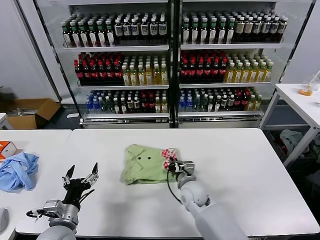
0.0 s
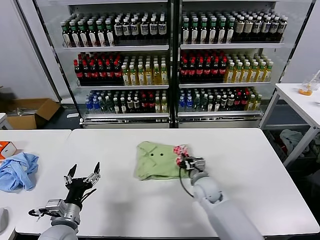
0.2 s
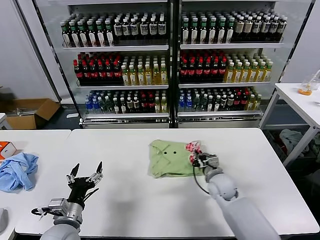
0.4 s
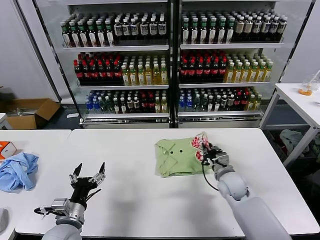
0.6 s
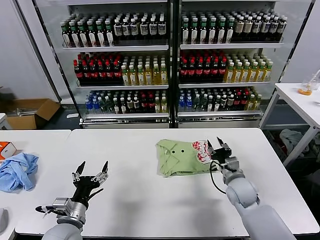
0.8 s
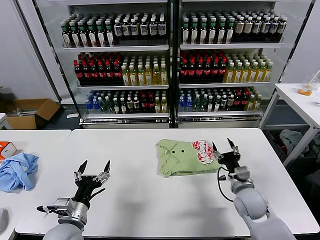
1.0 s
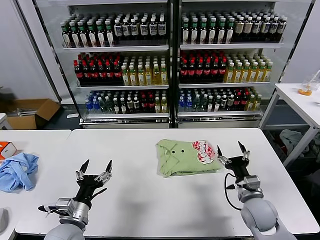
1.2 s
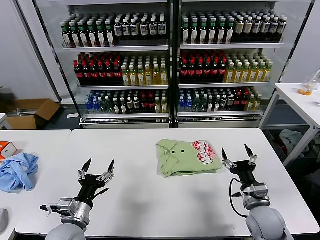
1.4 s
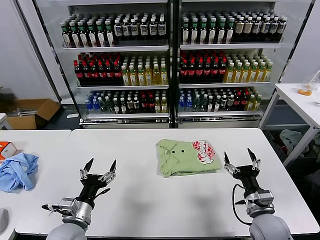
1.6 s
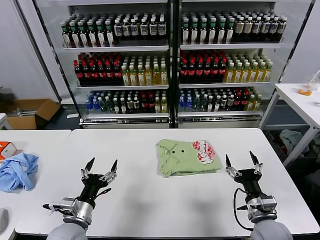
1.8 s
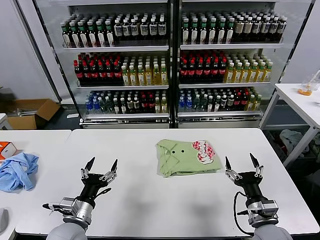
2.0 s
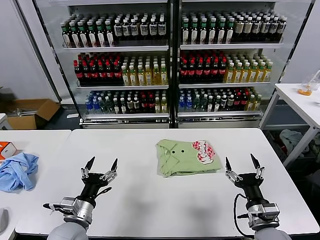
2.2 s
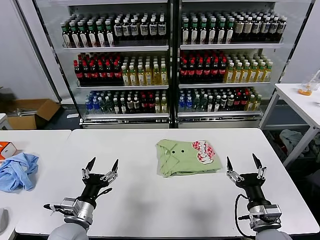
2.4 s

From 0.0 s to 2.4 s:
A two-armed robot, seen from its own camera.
Task of the whole recording: fold and organize the clothes.
From 0.0 s to 1.2 s: The right gripper is displaced to the right by some 20 cm, and opens its fingers.
From 1.2 s to 2.4 s: The right gripper heads backward, covering approximately 10 cm.

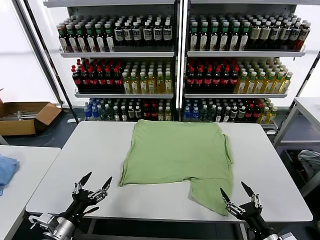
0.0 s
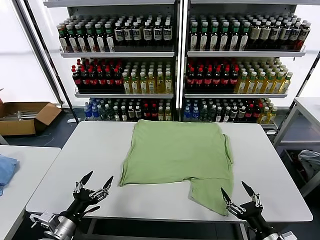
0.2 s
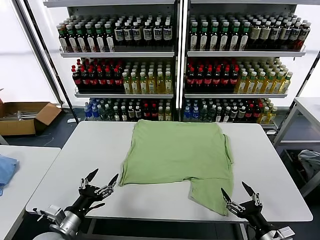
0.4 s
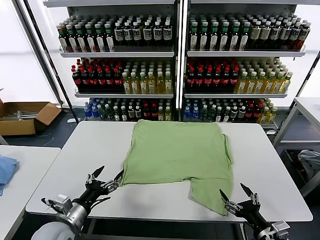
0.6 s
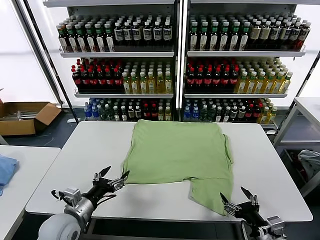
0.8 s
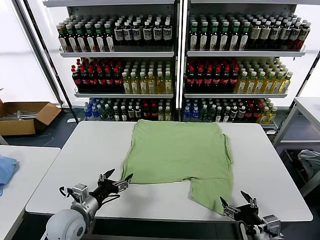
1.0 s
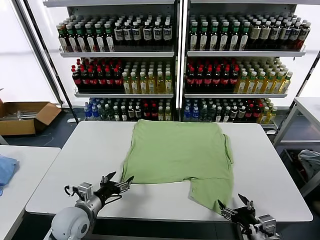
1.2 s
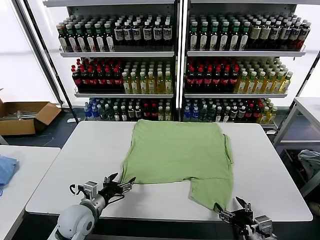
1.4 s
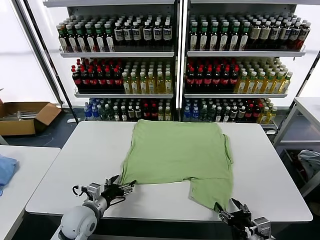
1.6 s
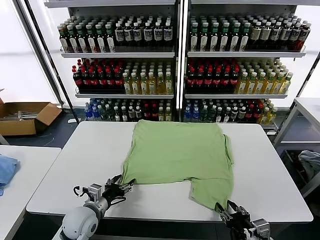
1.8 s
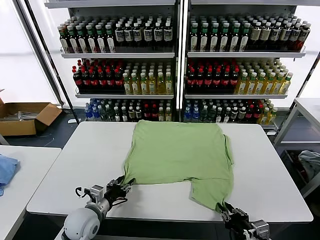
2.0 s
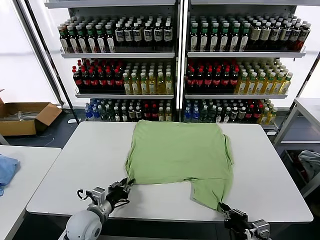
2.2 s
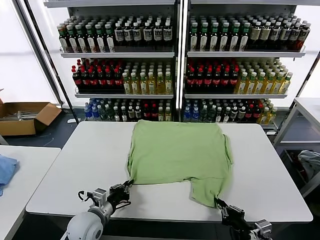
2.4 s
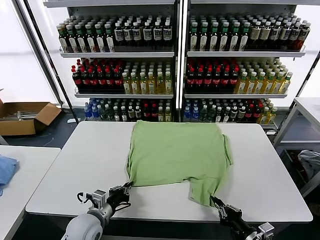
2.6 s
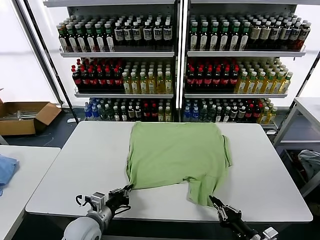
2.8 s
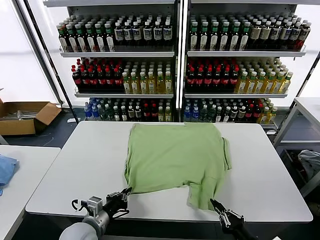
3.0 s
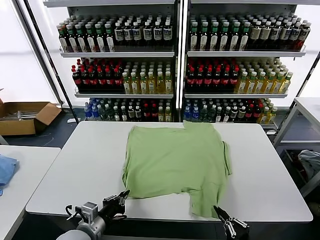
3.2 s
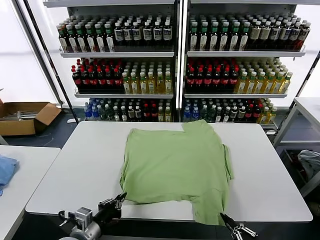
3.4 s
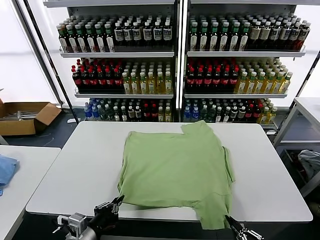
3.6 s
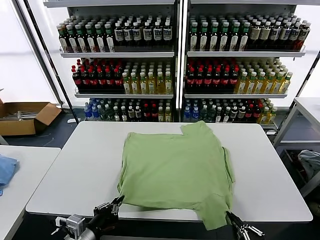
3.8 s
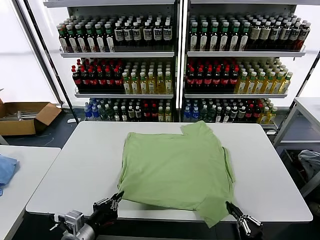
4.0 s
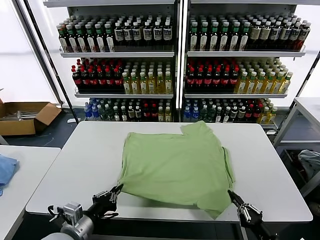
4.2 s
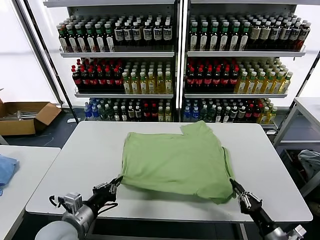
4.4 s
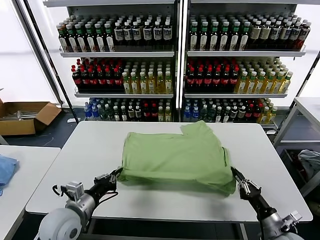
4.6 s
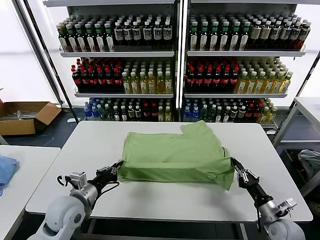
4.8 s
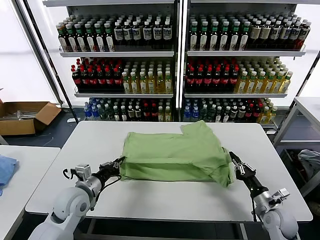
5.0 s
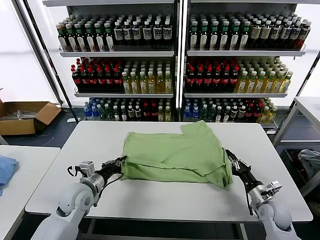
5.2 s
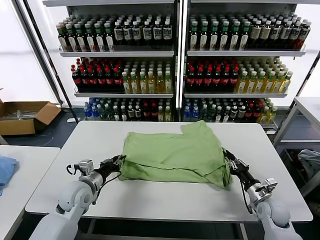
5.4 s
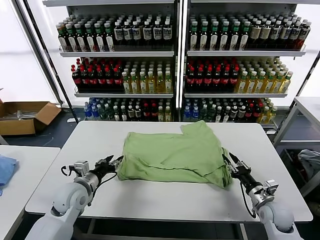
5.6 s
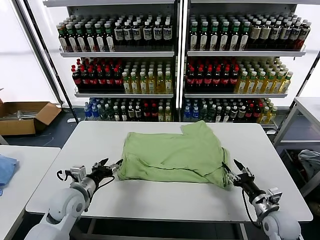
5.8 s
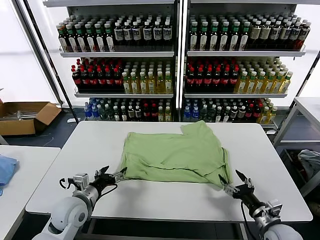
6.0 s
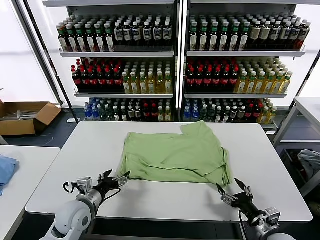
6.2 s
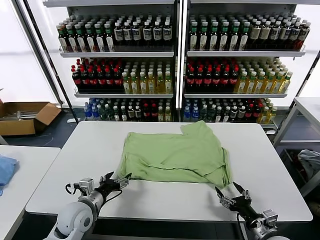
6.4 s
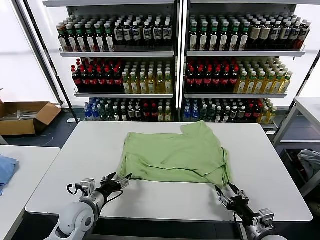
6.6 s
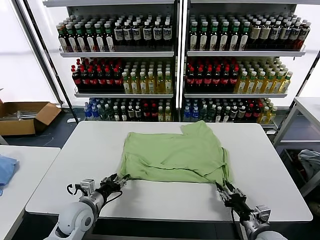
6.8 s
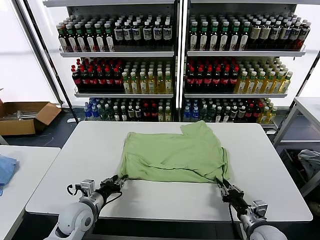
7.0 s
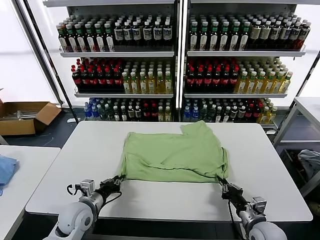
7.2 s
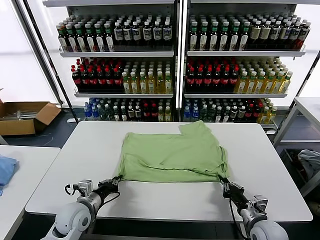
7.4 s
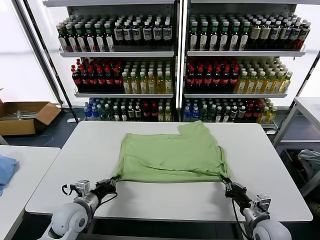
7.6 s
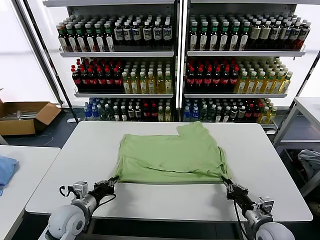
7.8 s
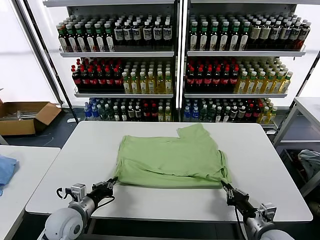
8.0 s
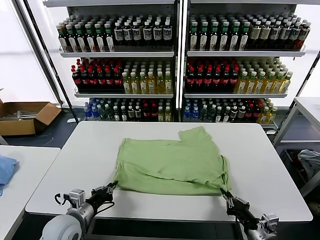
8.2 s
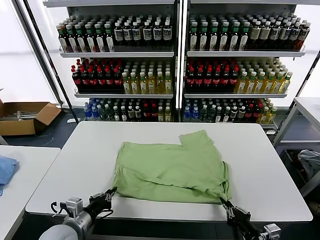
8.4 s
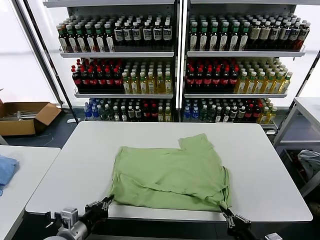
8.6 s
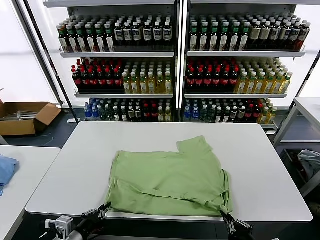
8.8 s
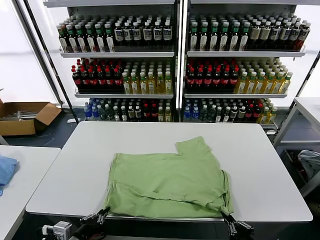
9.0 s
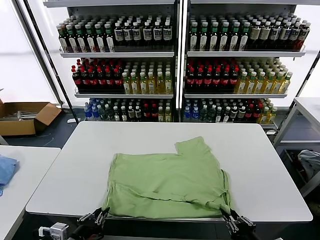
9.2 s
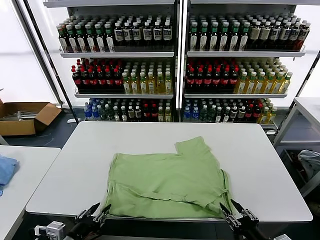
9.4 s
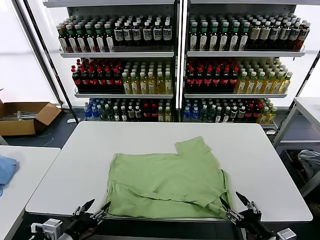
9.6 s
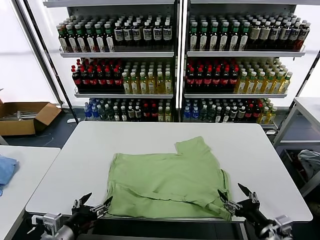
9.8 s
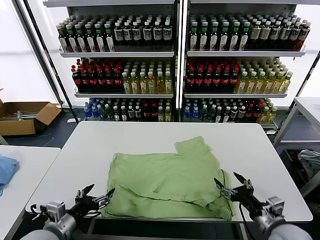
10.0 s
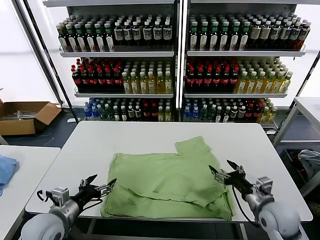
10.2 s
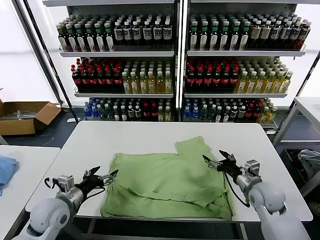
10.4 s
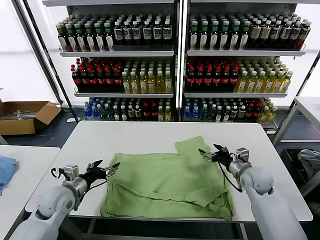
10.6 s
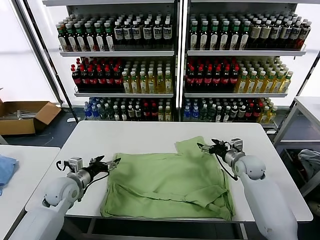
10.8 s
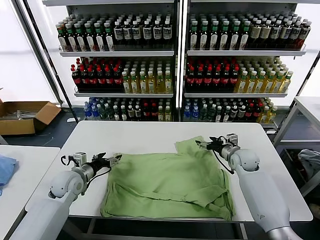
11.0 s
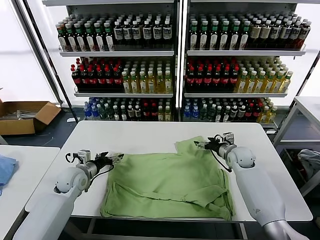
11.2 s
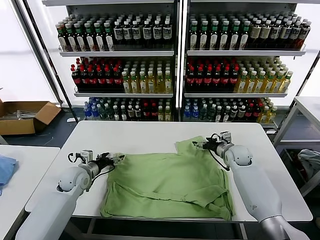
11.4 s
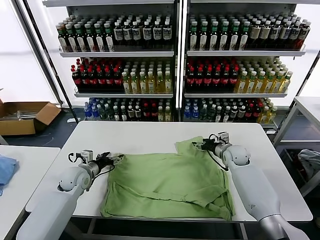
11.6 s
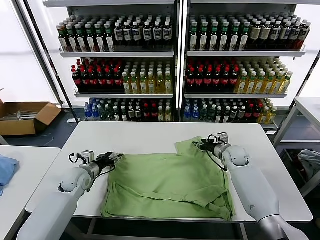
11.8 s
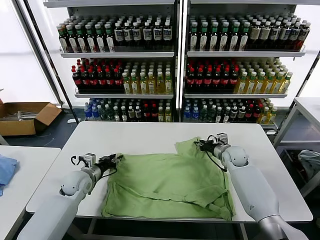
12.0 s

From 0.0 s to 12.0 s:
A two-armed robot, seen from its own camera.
Task of the whole recording: fold and organize the clothes.
Step, from 0.0 s to 2.4 s: use both grippers simultaneously to clamp the lower edge of the clothing fabric.
Step, from 2.6 s to 5.6 s: use both grippers to drag the lower edge of the fabric forward and fold it over the upper edge.
Step, from 5.8 s to 9.6 s: Drag the clothes downward with both gripper.
From 1.6 s to 3.0 s: The grippers both shift backward by roughly 5 cm. The left gripper closes up; the right gripper closes its fingers.
From 3.0 s to 4.4 s: The left gripper goes approximately 5 cm upward; the right gripper moves forward, some 10 cm.
From 4.4 s to 6.0 s: The left gripper goes approximately 5 cm forward, and opens. Meanwhile the right gripper goes forward and returns, some 10 cm each way, and opens its fingers.
From 6.0 s to 7.6 s: The left gripper closes, while the right gripper closes up.
From 7.6 s to 9.0 s: Both grippers move backward, some 15 cm.
From 9.0 s to 10.4 s: The left gripper goes about 15 cm forward, and opens, while the right gripper moves forward, roughly 30 cm, and opens its fingers.
From 10.4 s to 12.0 s: The left gripper shifts about 15 cm forward and downward, and closes up. The right gripper goes approximately 15 cm forward, and closes.

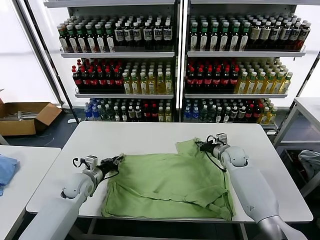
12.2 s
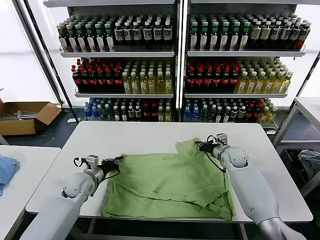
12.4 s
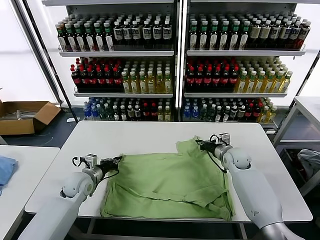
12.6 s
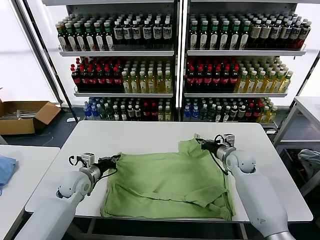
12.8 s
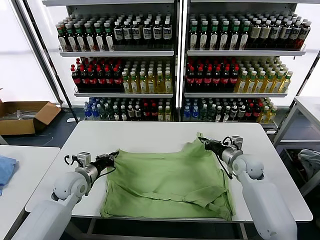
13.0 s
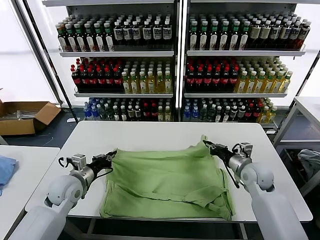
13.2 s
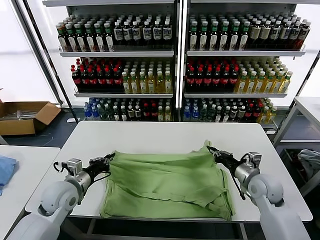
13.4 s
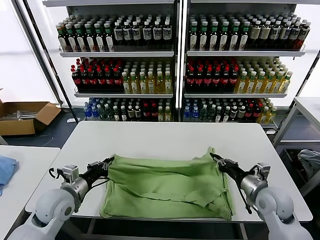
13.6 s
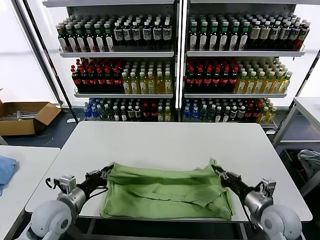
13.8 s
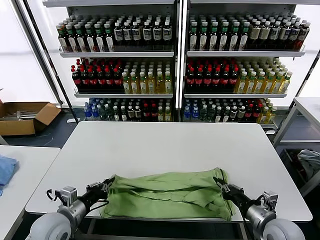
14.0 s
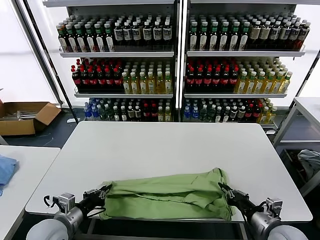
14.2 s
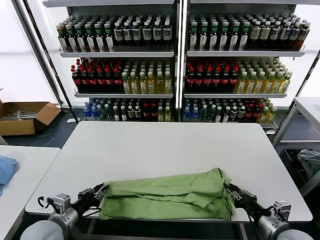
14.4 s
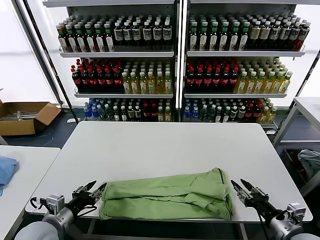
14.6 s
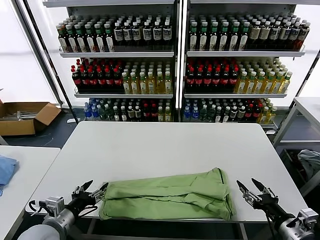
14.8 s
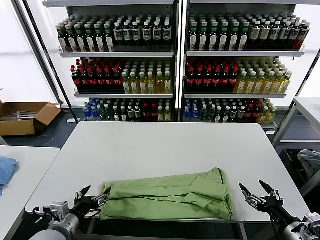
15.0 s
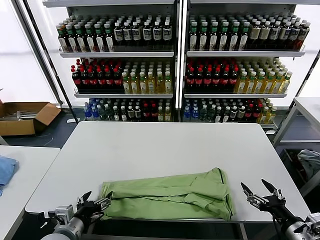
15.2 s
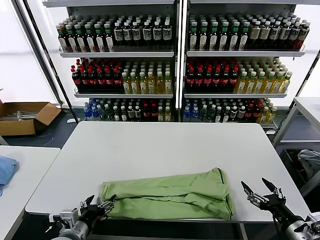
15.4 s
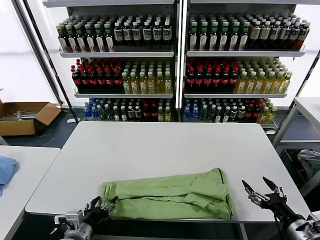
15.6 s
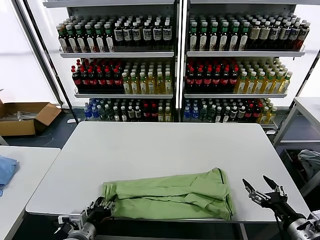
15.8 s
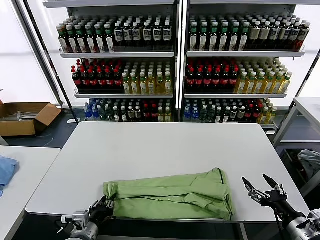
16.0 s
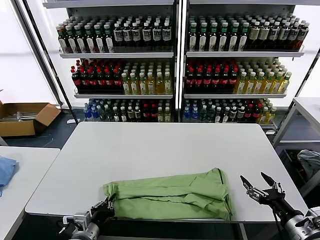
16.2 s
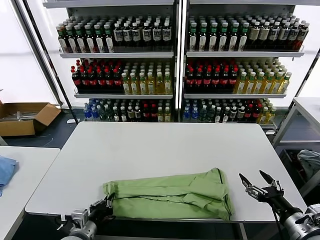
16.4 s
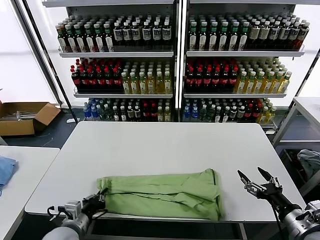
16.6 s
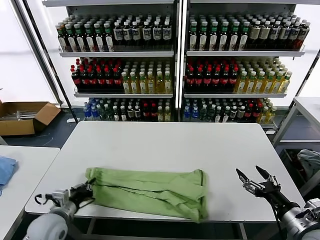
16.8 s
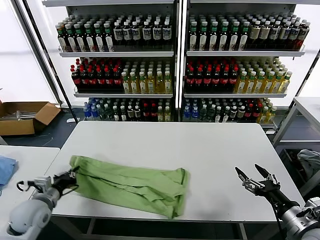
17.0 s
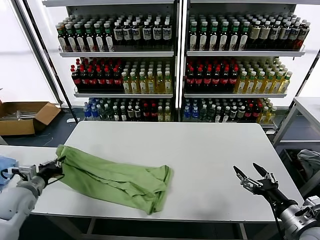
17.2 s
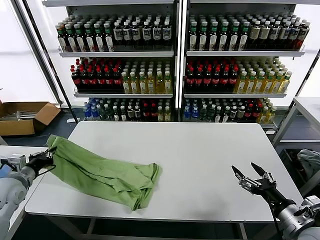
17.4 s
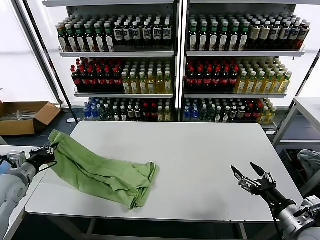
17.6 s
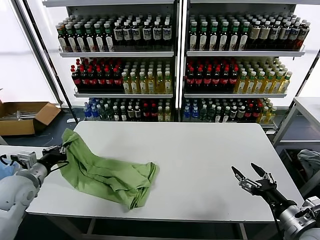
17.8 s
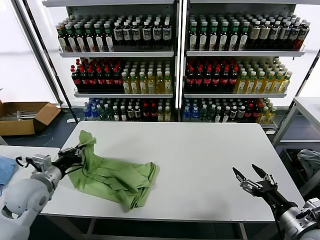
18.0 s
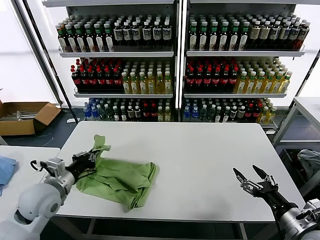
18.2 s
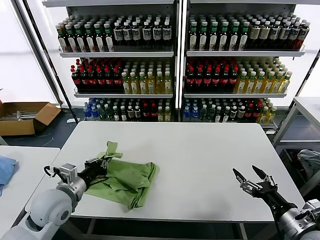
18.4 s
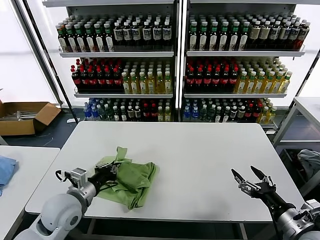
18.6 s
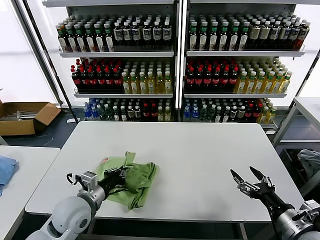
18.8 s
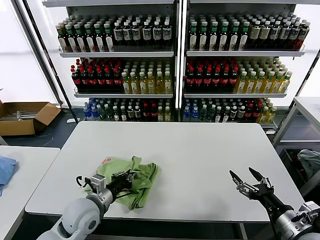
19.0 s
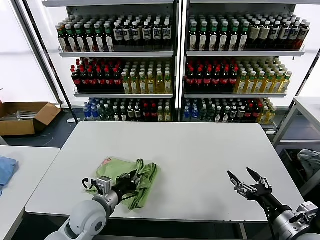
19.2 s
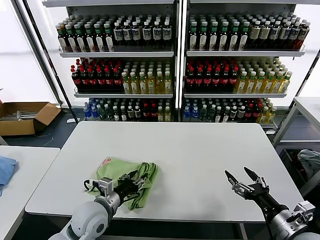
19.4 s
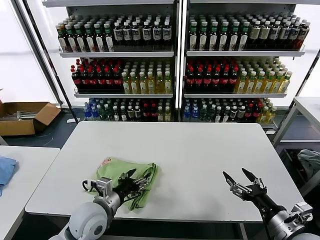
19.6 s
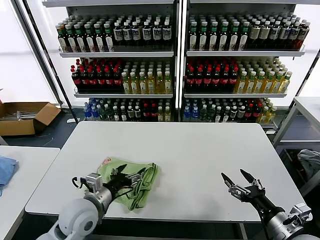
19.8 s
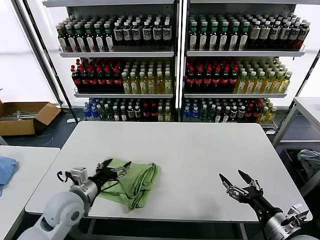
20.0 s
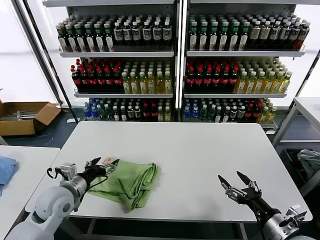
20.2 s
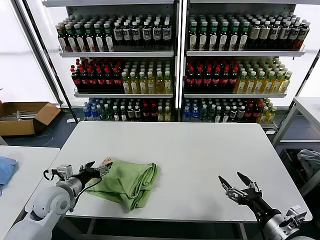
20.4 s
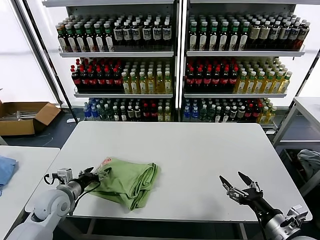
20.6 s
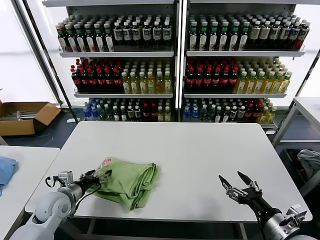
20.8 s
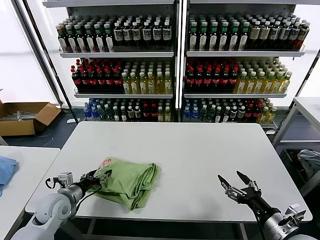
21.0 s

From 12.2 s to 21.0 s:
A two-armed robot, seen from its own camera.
Task of the whole recording: fold and organize the clothes.
Step, from 12.4 s to 14.4 s: use both grippers to drag the upper edge of the fabric backward and fold it over the lower edge.
Step, from 14.8 s to 16.2 s: use the left gripper to clamp the left edge of the fabric.
Step, from 16.4 s to 19.6 s: use the left gripper to drag the left edge of the fabric to the left and folds it over the right edge.
From 12.2 s to 13.6 s: The right gripper shifts some 25 cm backward. Meanwhile the left gripper heads backward and upward, covering roughly 15 cm.
From 13.6 s to 15.2 s: The right gripper heads backward and to the right, covering some 15 cm, and opens up. The left gripper travels backward by about 10 cm, and opens up.
From 15.2 s to 16.6 s: The left gripper closes its fingers.
From 16.6 s to 18.0 s: The left gripper heads upward, forward and to the left, covering approximately 15 cm.
From 18.0 s to 19.6 s: The left gripper is displaced to the right by roughly 15 cm, and opens up.
From 19.6 s to 21.0 s: The left gripper travels to the left by about 15 cm.
